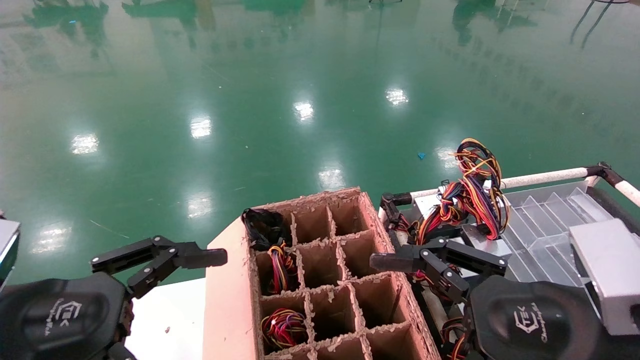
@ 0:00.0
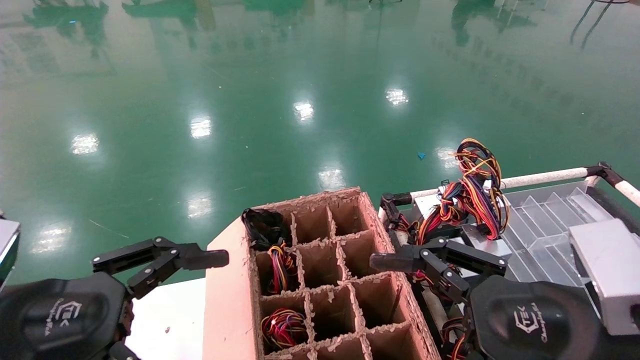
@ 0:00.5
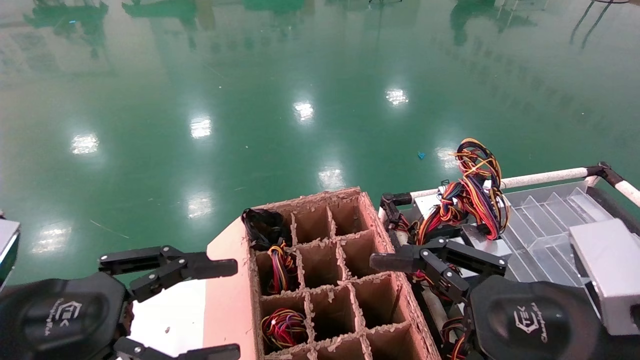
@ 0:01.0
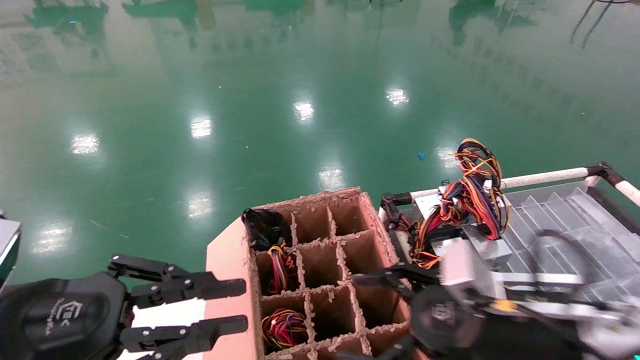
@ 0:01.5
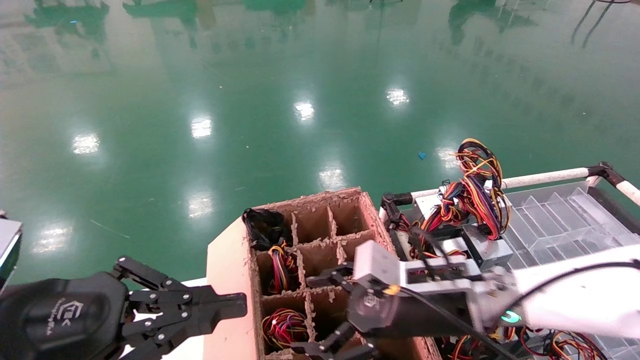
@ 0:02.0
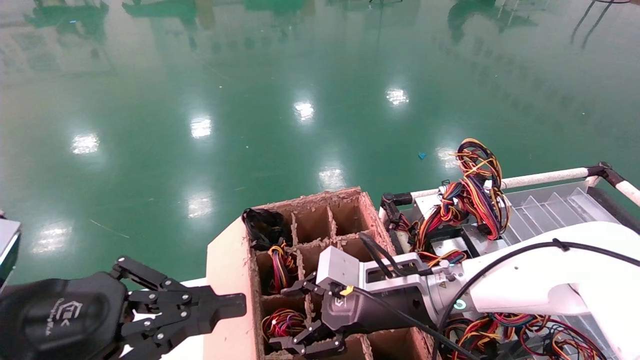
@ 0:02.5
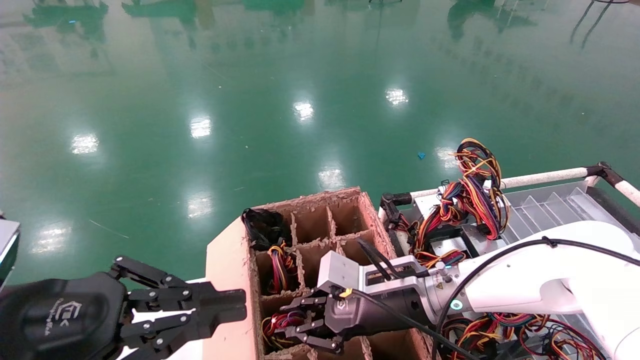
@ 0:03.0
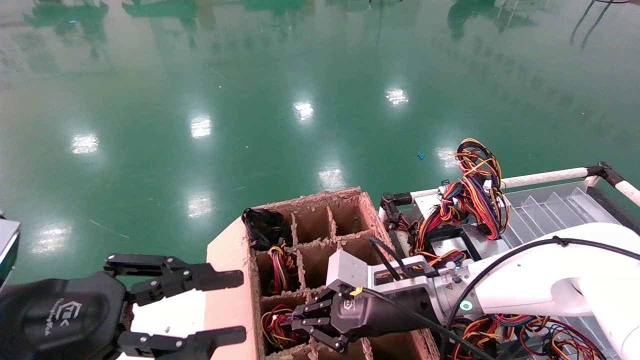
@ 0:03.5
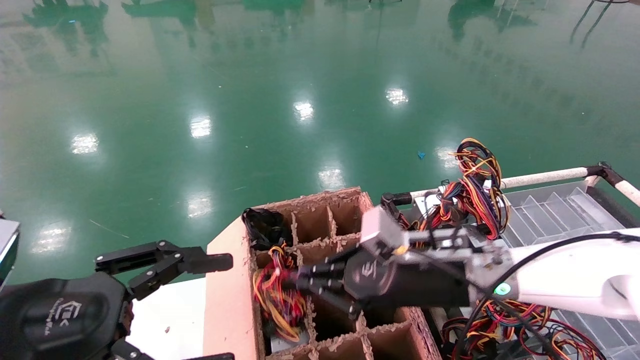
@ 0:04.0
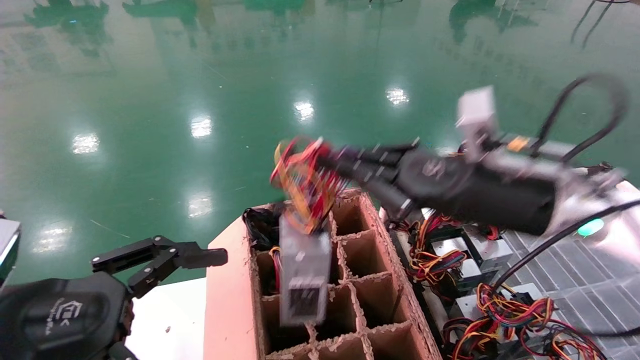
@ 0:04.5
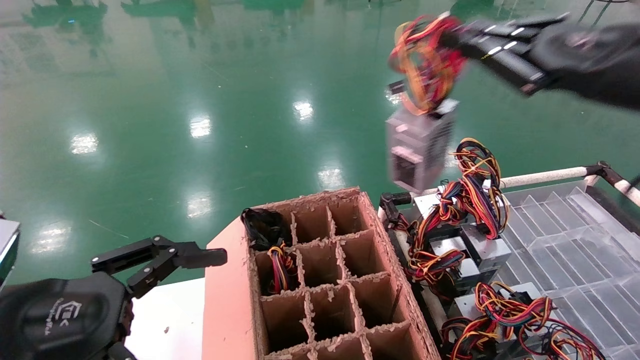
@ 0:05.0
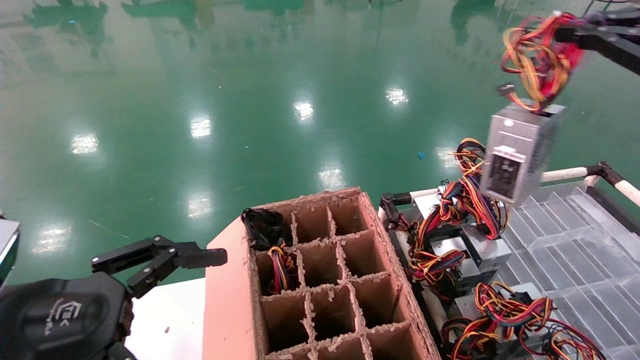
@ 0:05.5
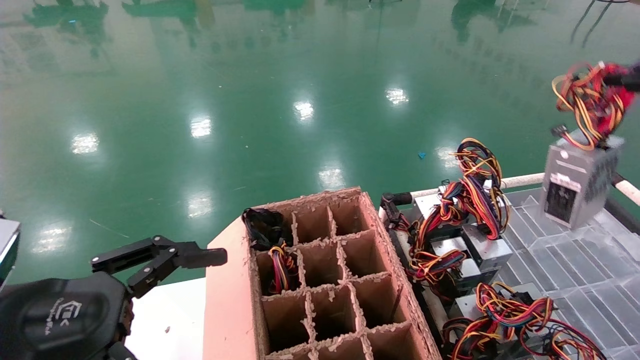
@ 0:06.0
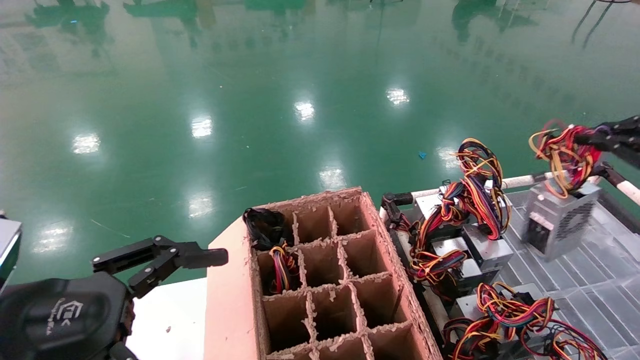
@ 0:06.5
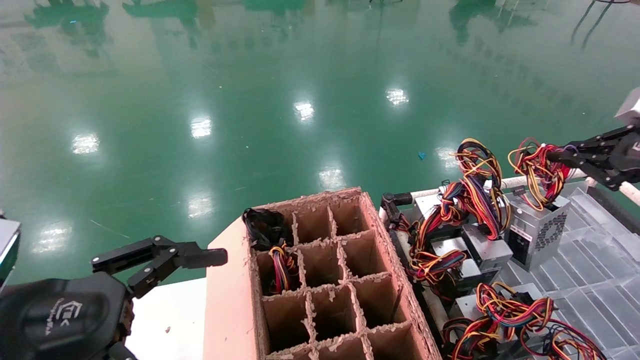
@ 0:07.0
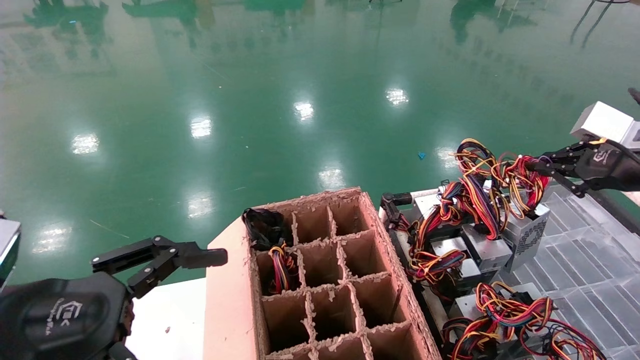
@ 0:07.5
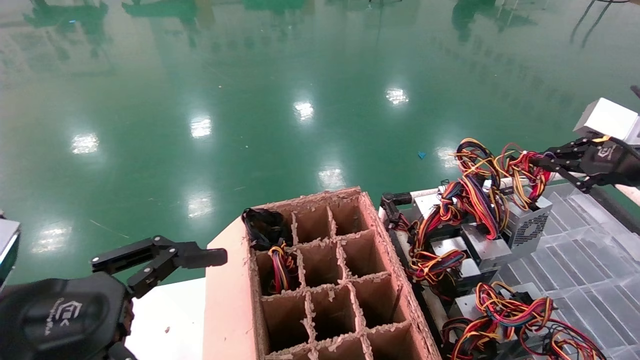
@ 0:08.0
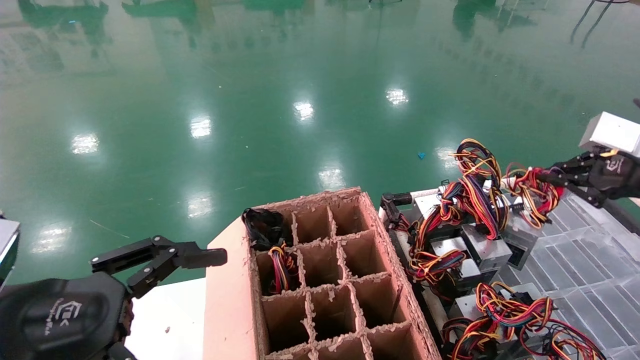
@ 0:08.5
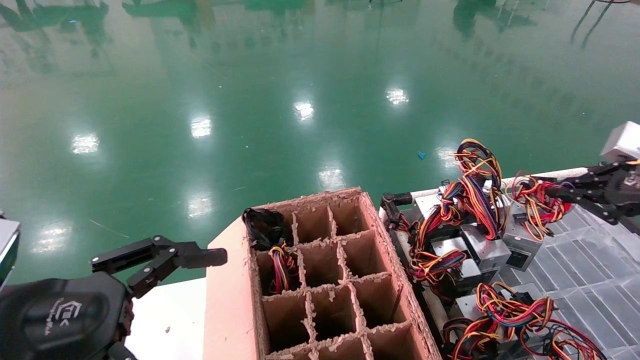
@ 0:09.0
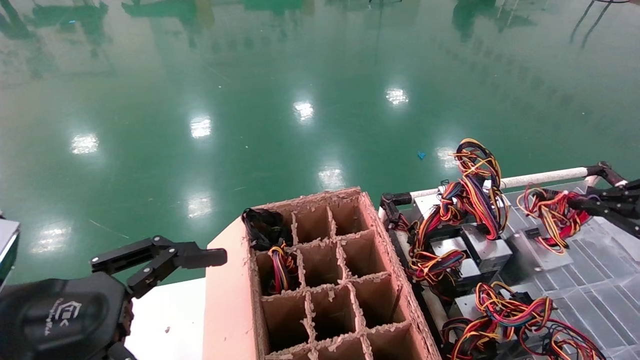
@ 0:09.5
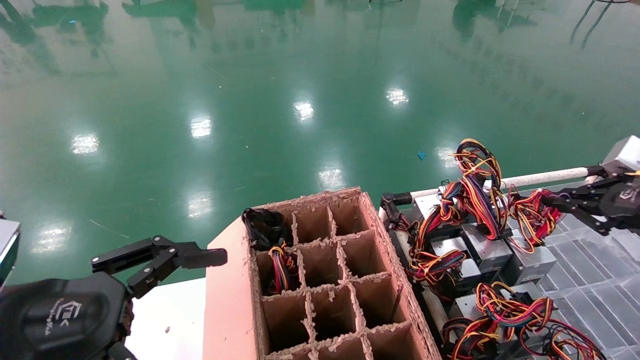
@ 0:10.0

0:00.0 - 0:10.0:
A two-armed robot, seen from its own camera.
Step, 0:01.0 - 0:03.0: Grab and lift the power supply from the large box.
0:00.0 - 0:02.0: The left gripper closes its fingers. The right gripper moves forward, to the left and downward, about 20 cm.
0:02.0 - 0:04.0: The right gripper closes. The left gripper opens up.
0:04.0 - 0:06.0: The right gripper heads to the right and upward, covering some 40 cm.
0:06.0 - 0:08.0: The right gripper goes approximately 15 cm forward and downward.
0:08.0 - 0:10.0: The right gripper is displaced downward by about 5 cm.

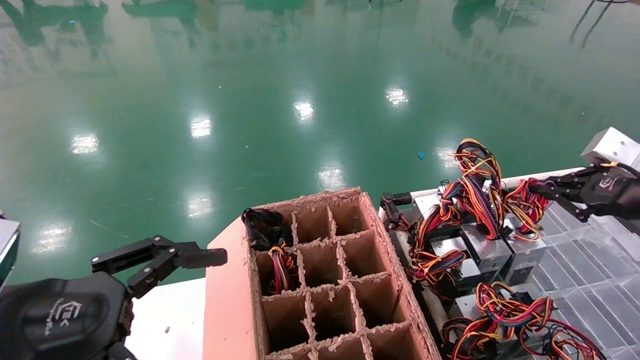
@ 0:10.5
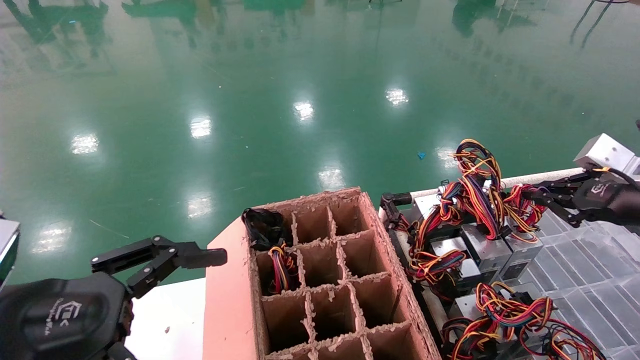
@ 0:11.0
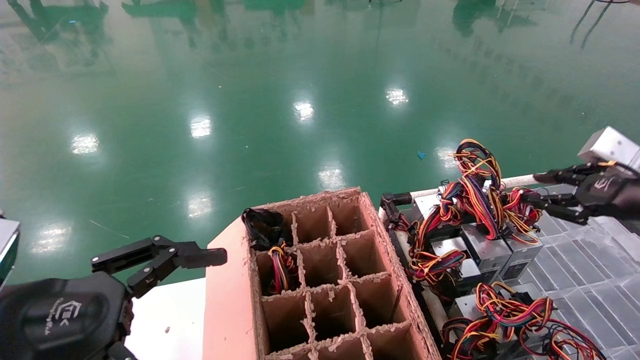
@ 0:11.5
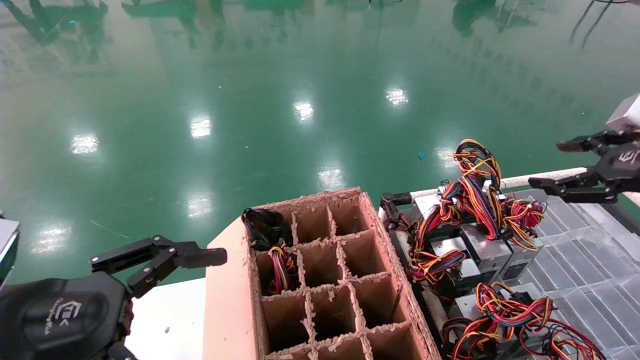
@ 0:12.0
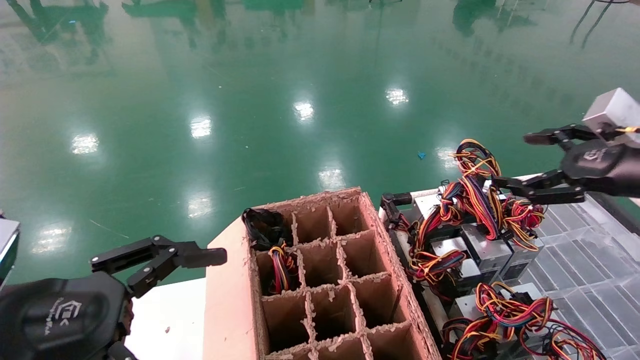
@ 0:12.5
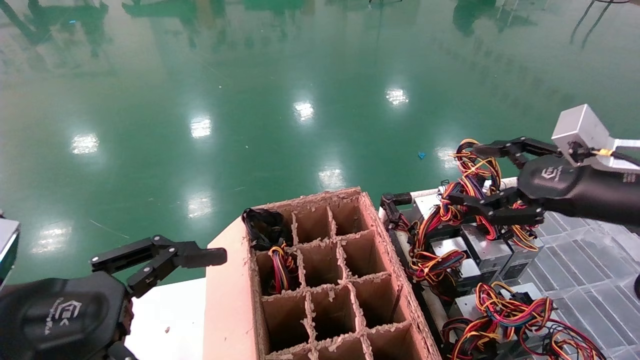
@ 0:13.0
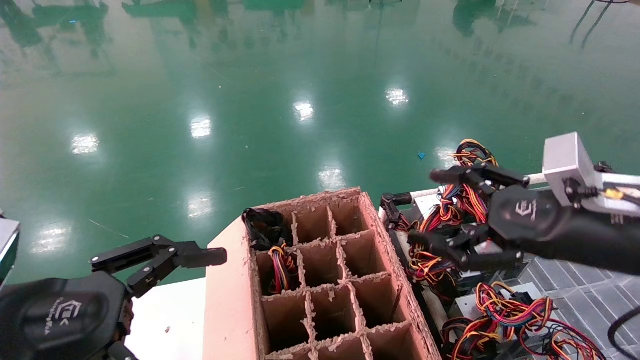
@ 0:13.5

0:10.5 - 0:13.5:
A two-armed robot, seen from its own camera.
0:10.5 - 0:12.0: The right gripper opens up.
0:12.0 - 0:13.5: The right gripper goes about 15 cm to the left.

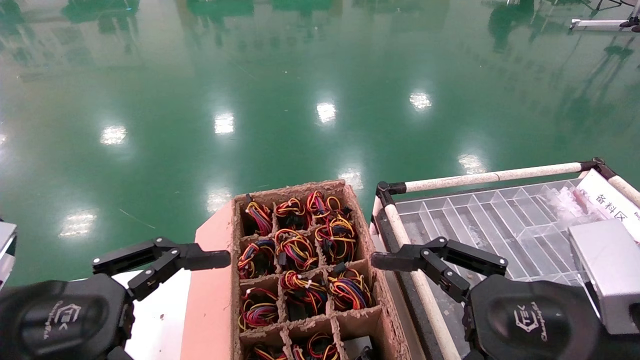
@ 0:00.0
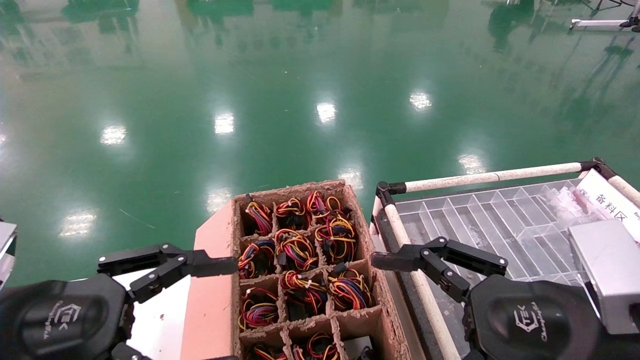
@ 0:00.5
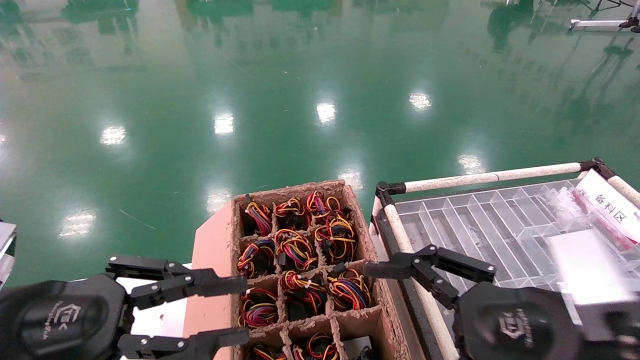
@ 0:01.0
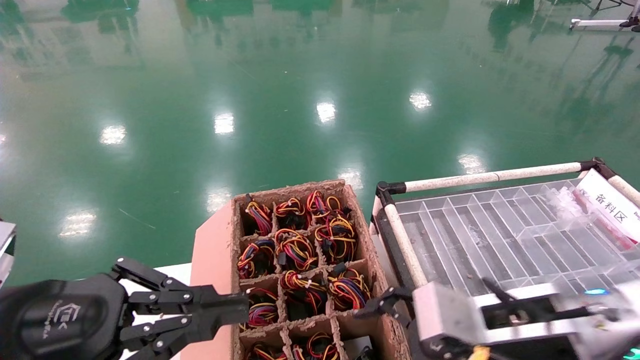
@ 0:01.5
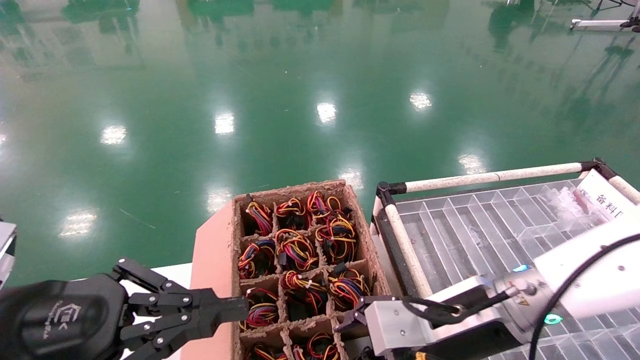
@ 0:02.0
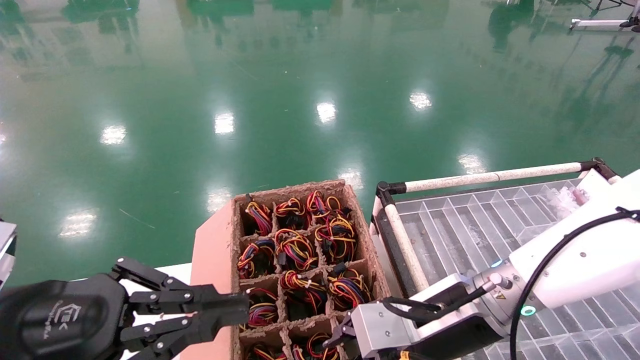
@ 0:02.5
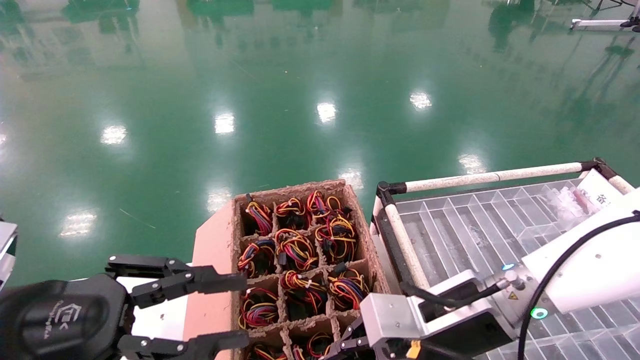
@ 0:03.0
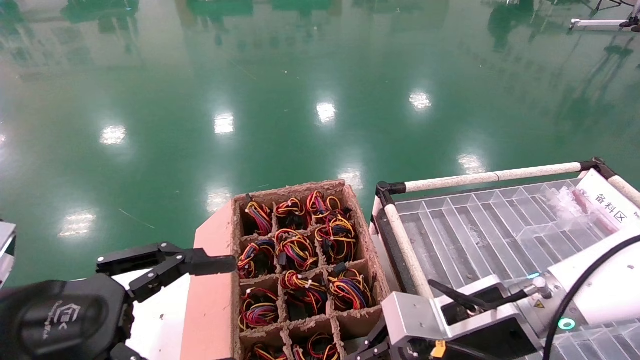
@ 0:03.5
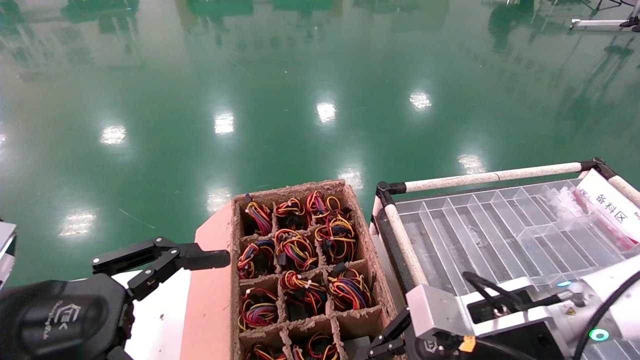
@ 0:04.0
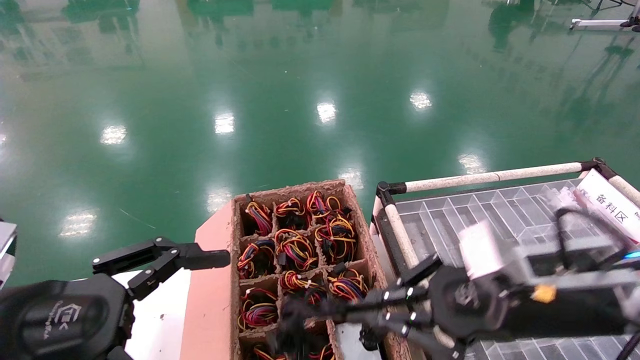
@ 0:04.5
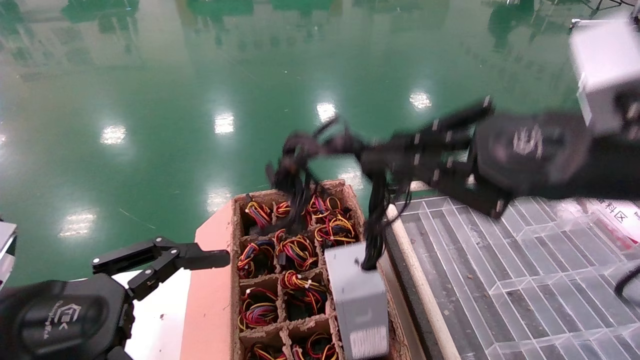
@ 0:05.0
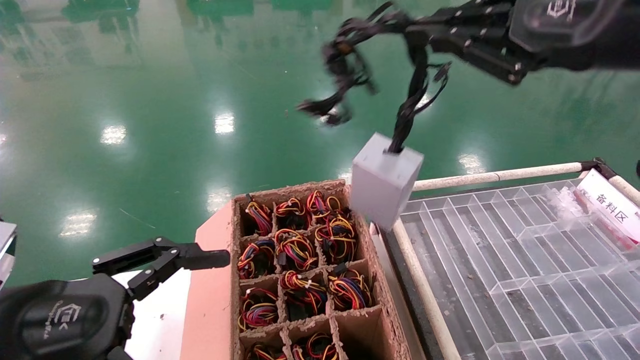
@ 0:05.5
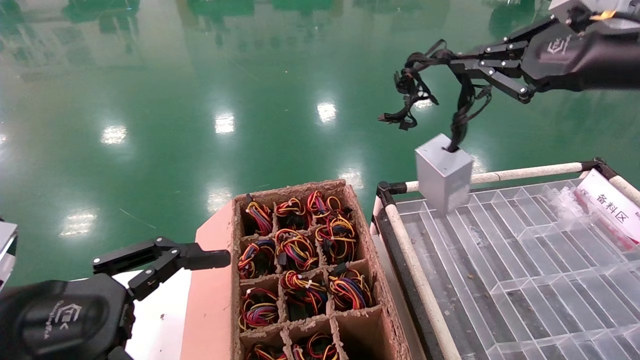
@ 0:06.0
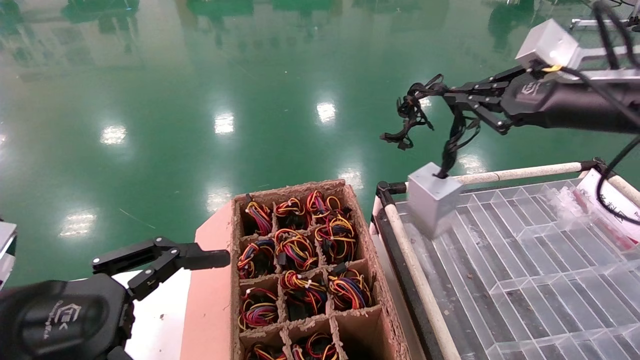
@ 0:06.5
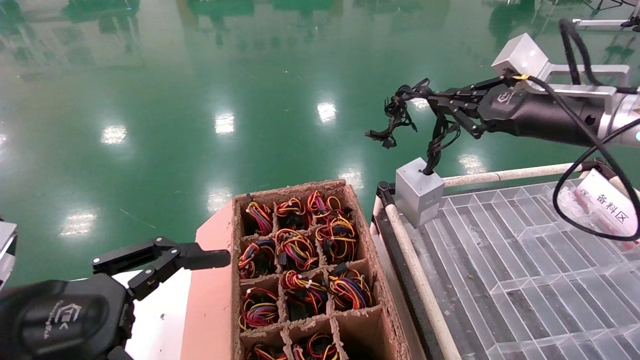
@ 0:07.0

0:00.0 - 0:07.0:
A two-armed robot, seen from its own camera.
Step, 0:01.5 - 0:04.0: Grab and lift the power supply from the large box.
0:00.0 - 0:02.0: The right gripper shifts approximately 15 cm forward and to the left, while the left gripper closes.
0:02.0 - 0:03.5: The right gripper closes its fingers; the left gripper opens up.
0:03.5 - 0:05.0: The right gripper goes approximately 20 cm upward.
0:05.0 - 0:07.0: The right gripper heads forward and to the right, covering approximately 15 cm.
